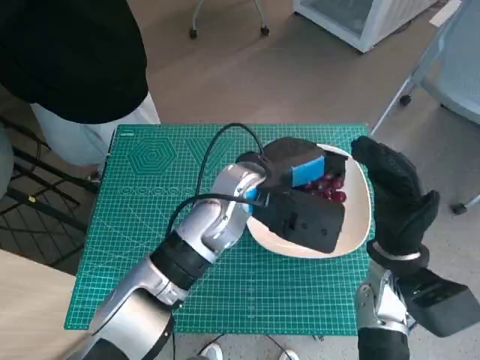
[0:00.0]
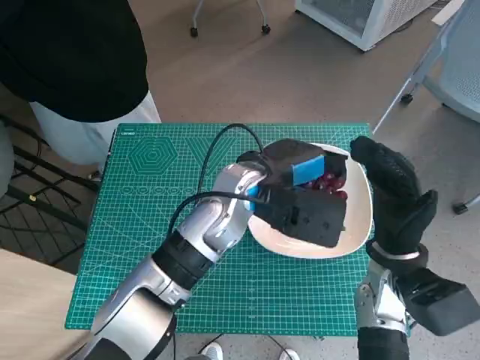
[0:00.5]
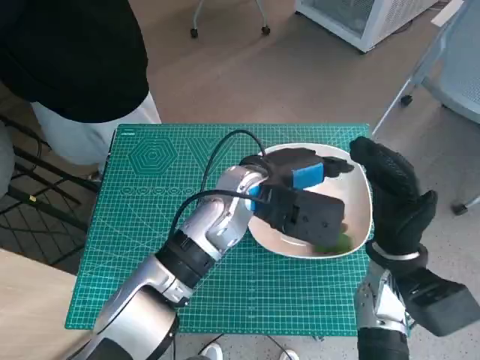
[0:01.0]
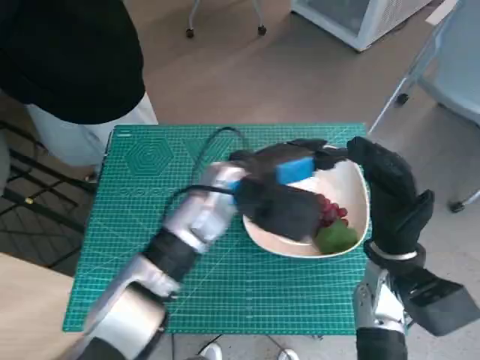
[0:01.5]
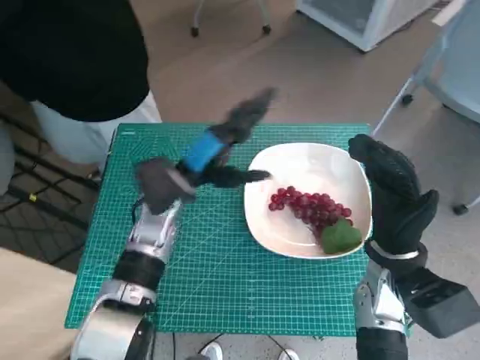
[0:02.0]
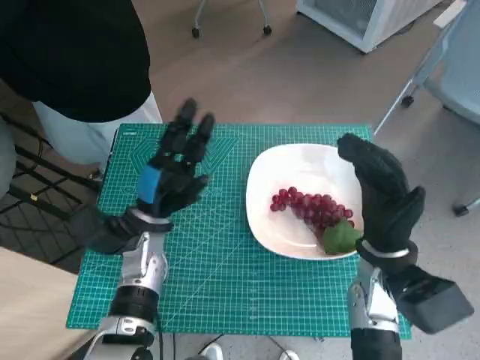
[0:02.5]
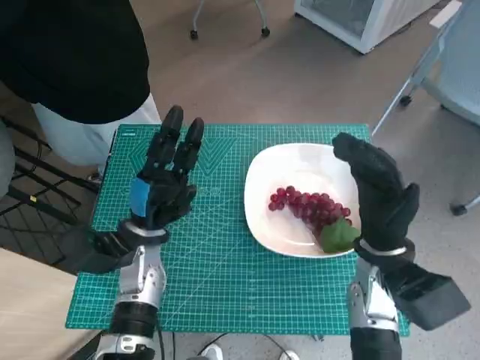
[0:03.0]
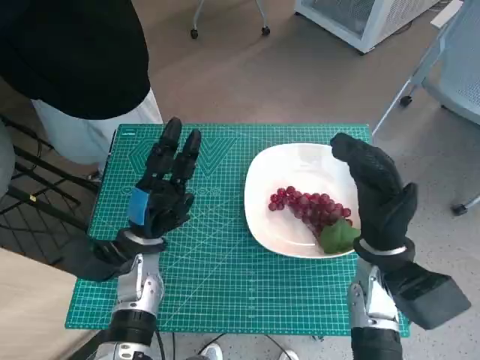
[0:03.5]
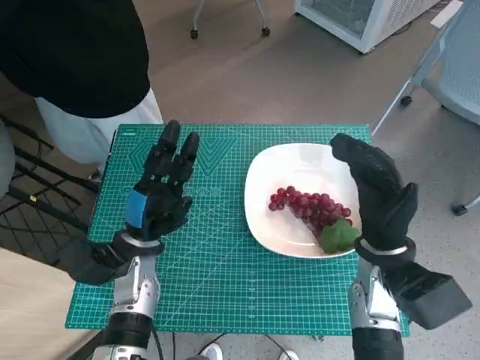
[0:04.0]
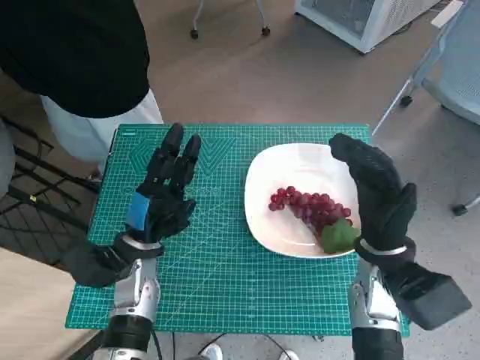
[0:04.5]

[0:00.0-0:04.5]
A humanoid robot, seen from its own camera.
Task of the whole recording: Pick up the grapes and put them on the plate.
0:00.0 to 0:02.0: The left hand goes roughly 10 cm to the left.
0:02.0 to 0:04.5: The left hand goes roughly 10 cm downward, backward and to the left.
